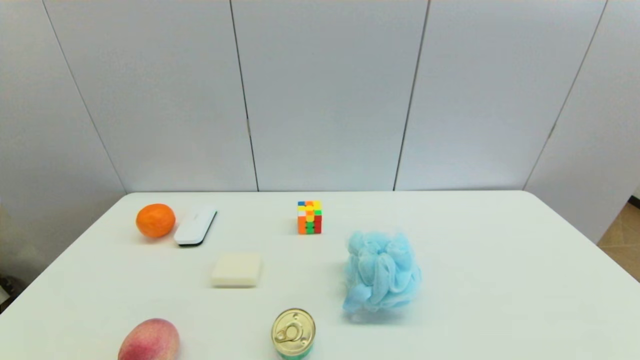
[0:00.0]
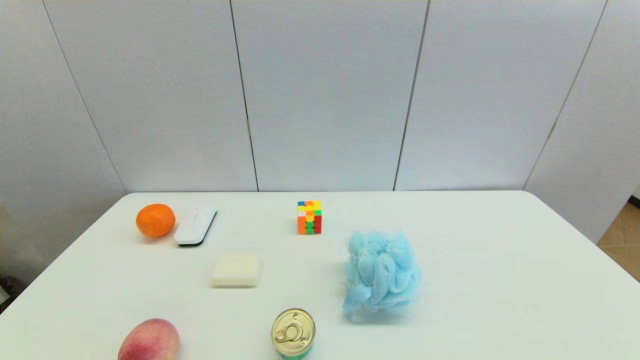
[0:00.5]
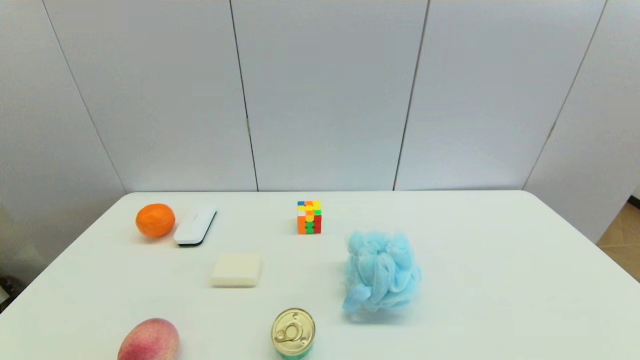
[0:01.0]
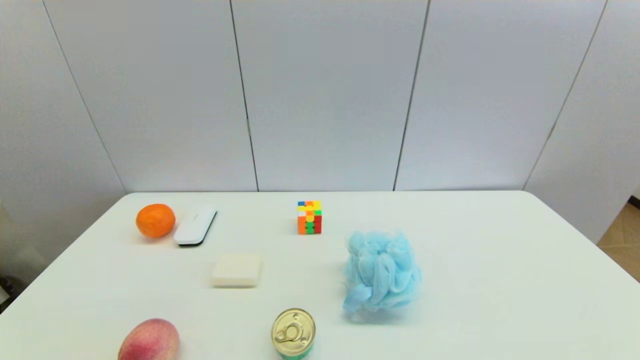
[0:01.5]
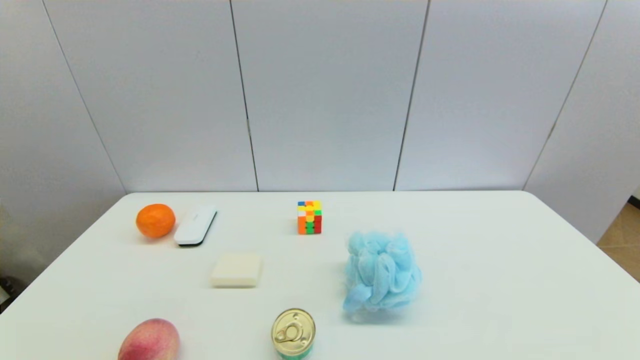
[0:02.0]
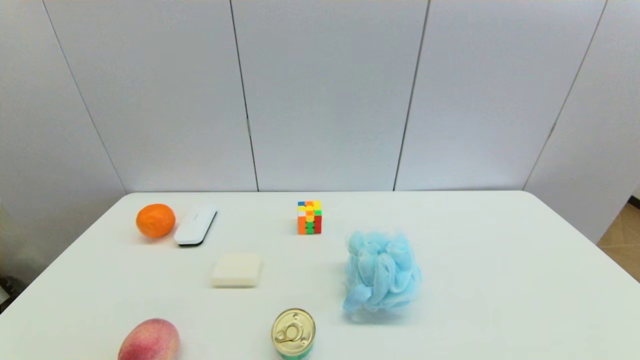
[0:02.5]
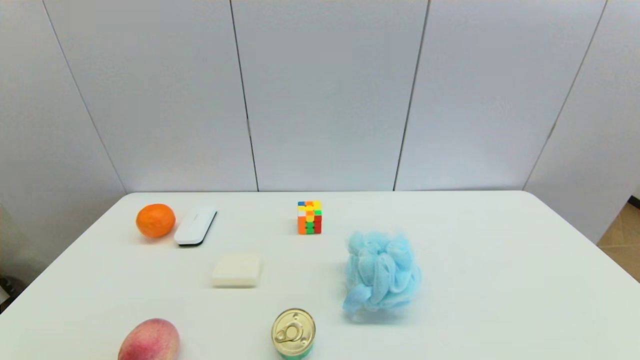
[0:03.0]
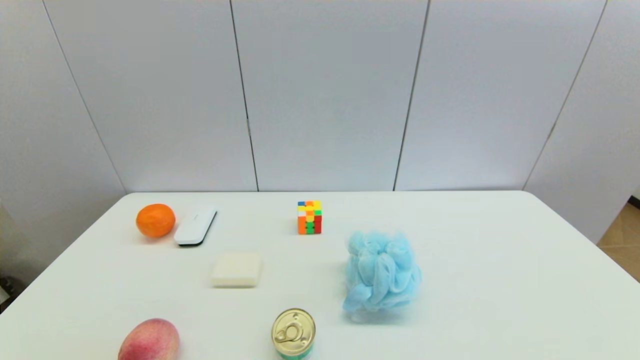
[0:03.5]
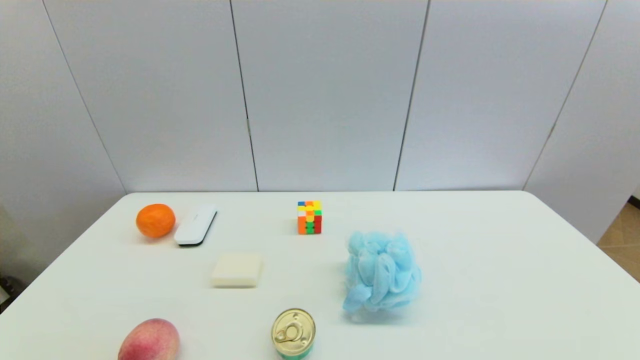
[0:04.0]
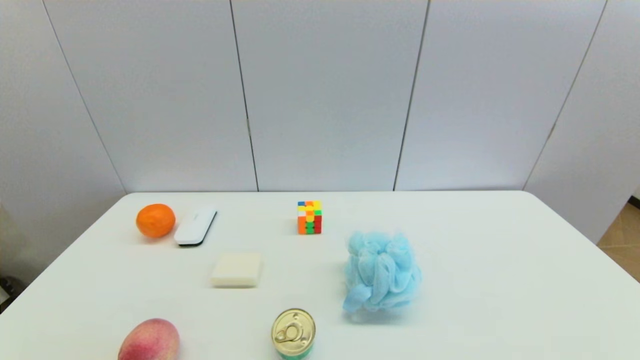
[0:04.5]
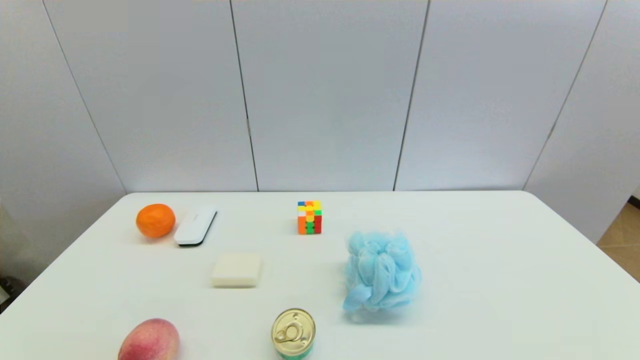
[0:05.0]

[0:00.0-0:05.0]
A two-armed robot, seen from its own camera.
0:02.5 to 0:05.0: The two grippers keep their place.
